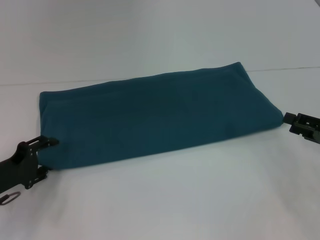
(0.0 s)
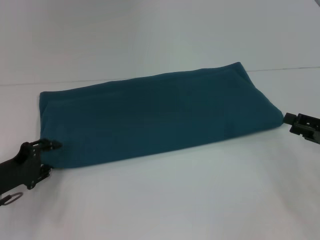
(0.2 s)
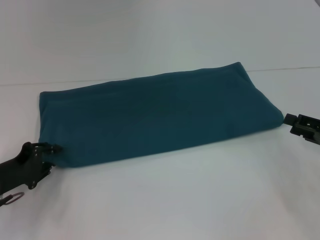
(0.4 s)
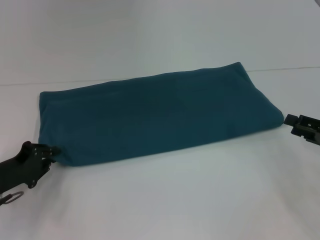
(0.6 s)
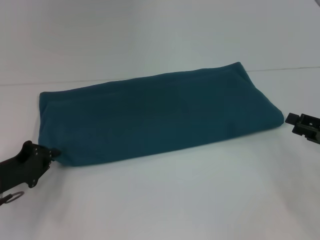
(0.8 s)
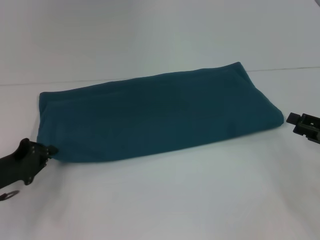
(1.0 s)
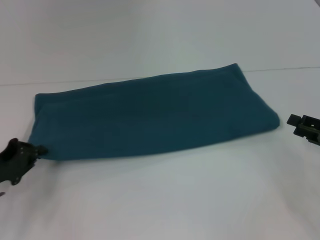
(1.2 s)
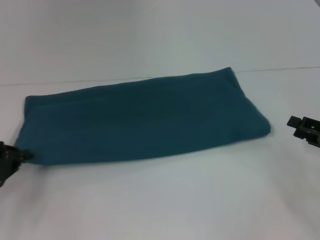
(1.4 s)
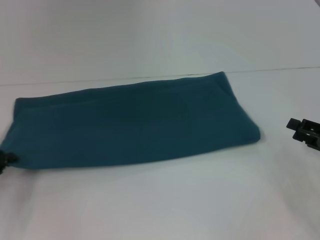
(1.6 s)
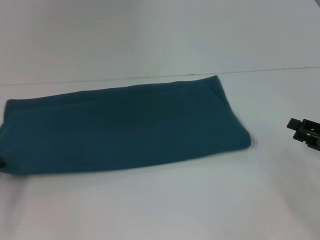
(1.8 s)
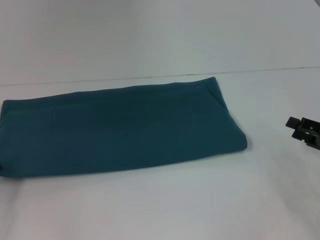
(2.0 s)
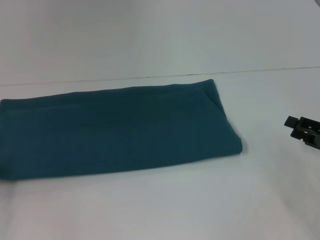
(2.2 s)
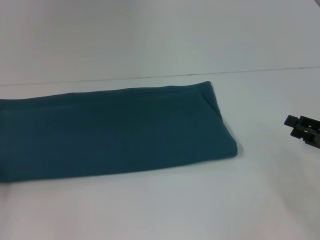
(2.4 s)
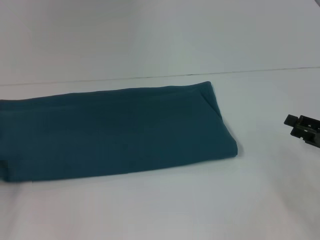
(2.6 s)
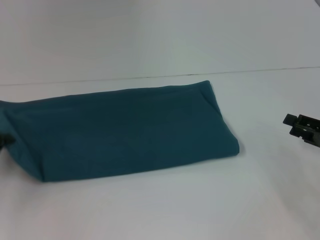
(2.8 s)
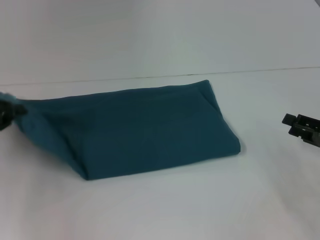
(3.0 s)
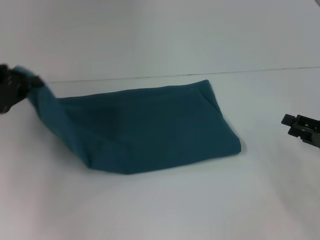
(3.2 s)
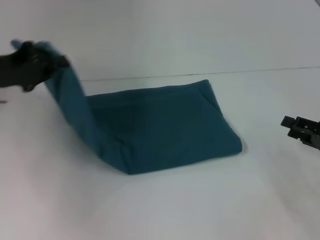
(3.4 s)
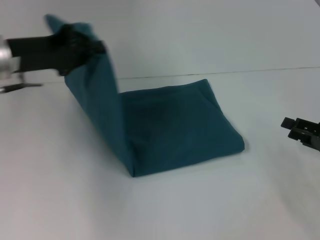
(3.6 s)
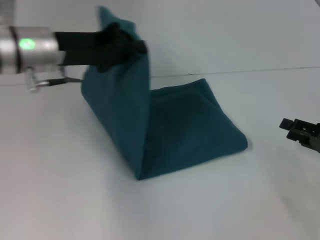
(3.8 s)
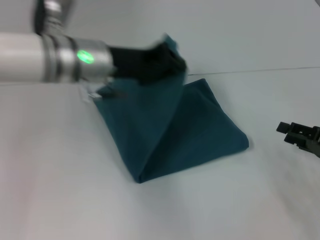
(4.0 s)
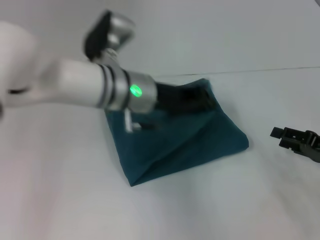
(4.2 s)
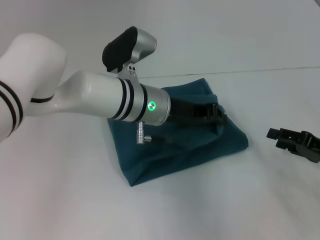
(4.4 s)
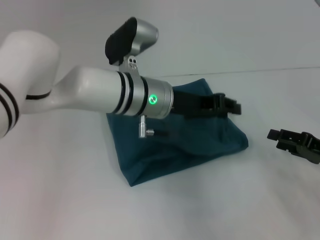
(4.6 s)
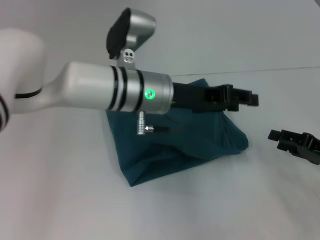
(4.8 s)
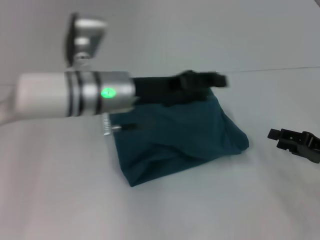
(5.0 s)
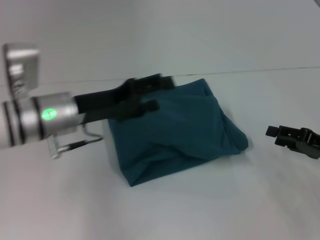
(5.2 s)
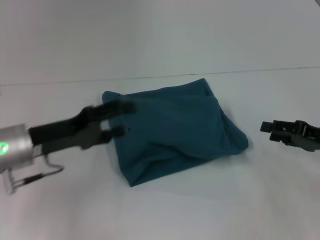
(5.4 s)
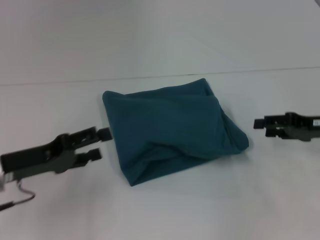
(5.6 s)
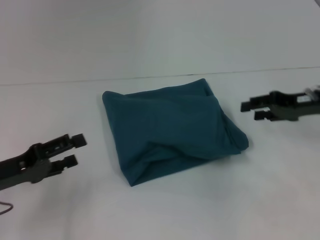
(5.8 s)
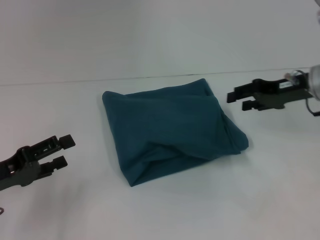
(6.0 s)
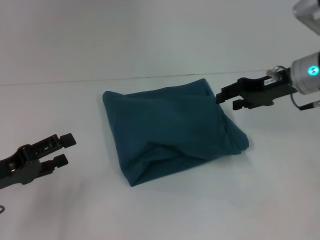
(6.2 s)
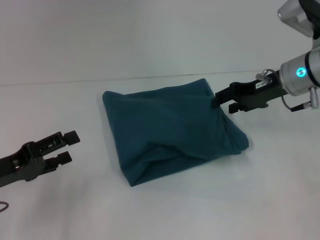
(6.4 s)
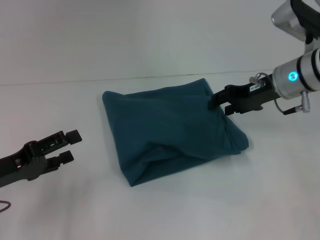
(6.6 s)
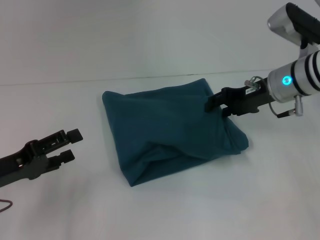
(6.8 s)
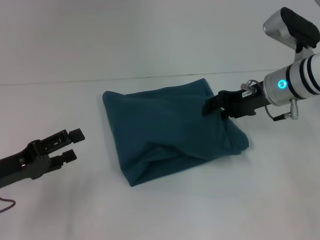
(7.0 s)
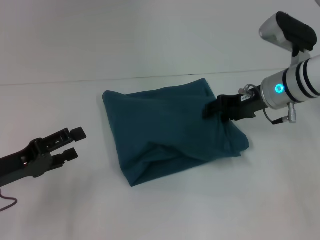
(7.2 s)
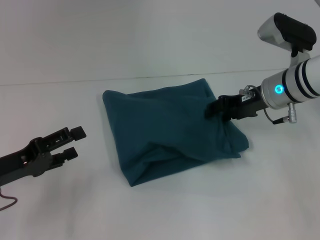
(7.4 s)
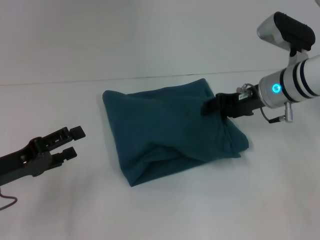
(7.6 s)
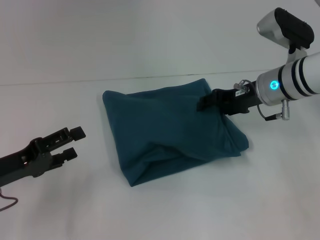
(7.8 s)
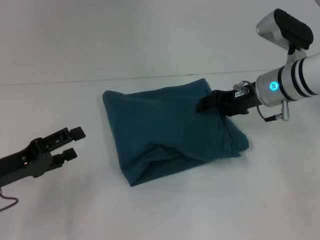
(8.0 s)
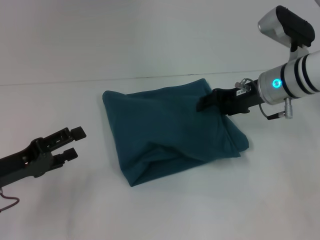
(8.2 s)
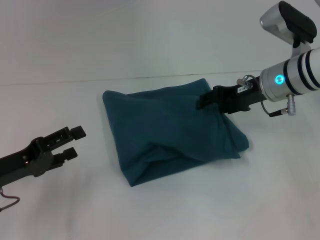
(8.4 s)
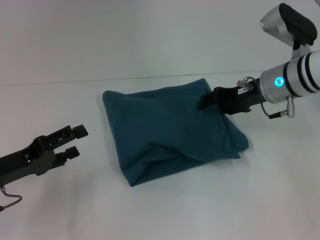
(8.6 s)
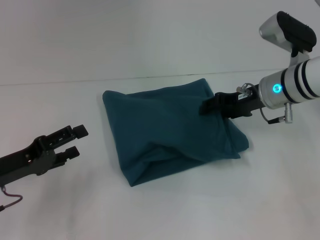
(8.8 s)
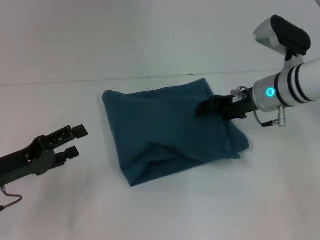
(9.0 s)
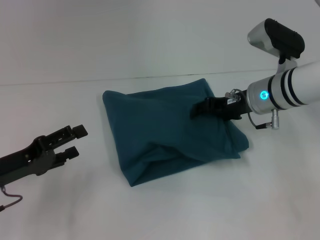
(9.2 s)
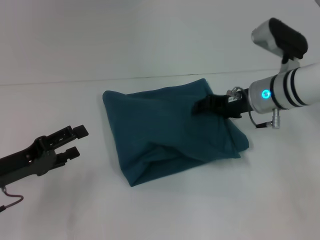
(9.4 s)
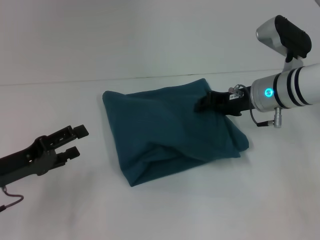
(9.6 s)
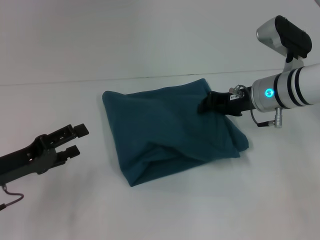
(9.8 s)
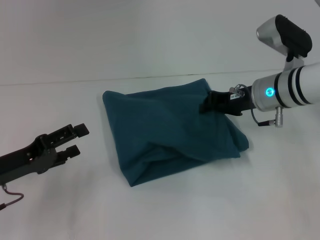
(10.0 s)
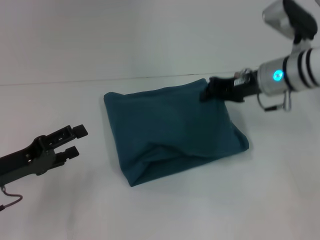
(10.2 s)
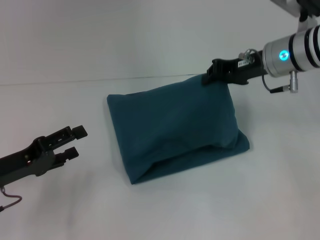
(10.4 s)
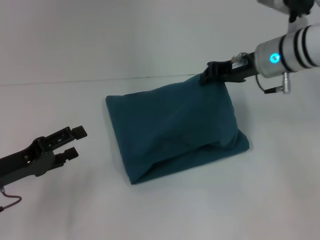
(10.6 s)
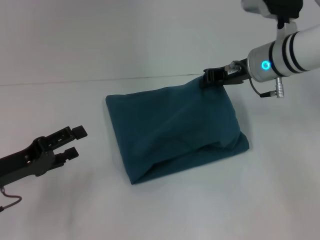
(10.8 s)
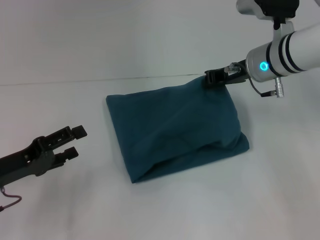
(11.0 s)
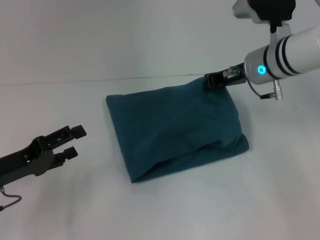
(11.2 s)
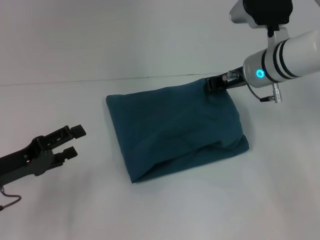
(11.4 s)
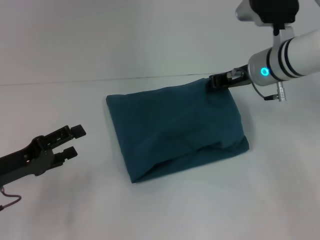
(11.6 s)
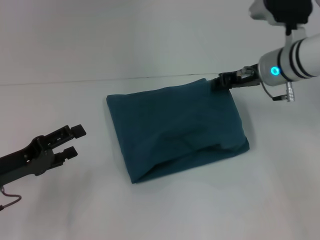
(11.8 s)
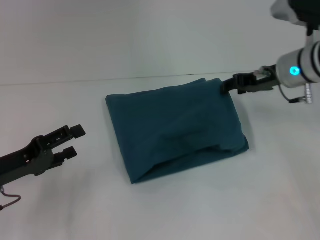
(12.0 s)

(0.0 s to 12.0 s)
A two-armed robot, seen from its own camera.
Step, 0.0 s - 5.0 s: Fold the clothes to the left.
0.0 s - 1.6 s: The left gripper is displaced to the left by roughly 5 cm, and closes its fingers.
1.6 s - 3.0 s: The left gripper is displaced upward by approximately 5 cm.
3.0 s - 4.4 s: The left gripper shifts some 30 cm to the right.
4.4 s - 6.0 s: The right gripper is displaced forward, upward and to the left by approximately 15 cm, while the left gripper travels to the left and backward by roughly 30 cm, and opens up.
6.0 s - 7.6 s: The right gripper is displaced to the left by about 5 cm.
7.6 s - 9.0 s: The grippers stay close to where they were, moving slightly.
9.0 s - 10.4 s: The right gripper travels upward by approximately 5 cm, and closes its fingers.
10.4 s - 12.0 s: The right gripper opens its fingers.

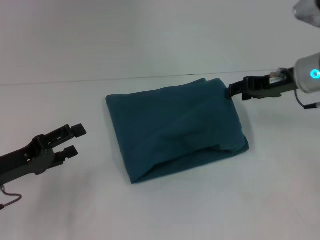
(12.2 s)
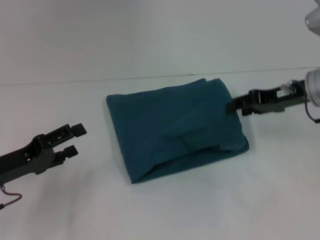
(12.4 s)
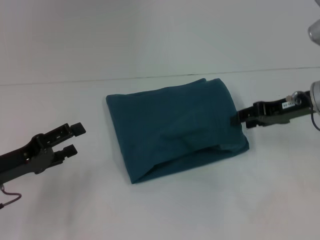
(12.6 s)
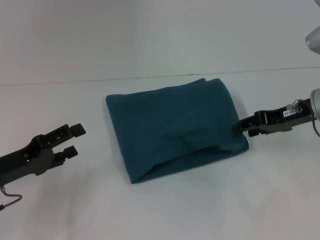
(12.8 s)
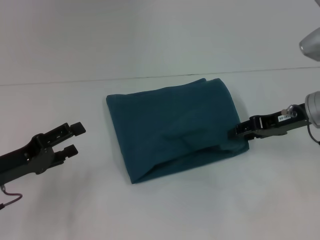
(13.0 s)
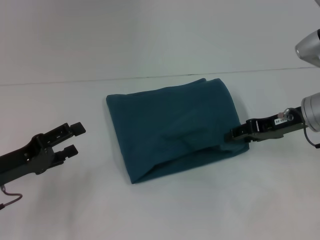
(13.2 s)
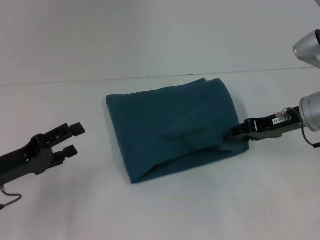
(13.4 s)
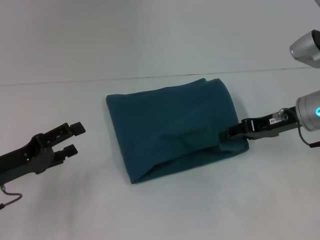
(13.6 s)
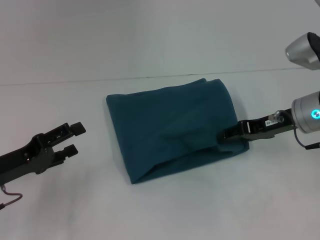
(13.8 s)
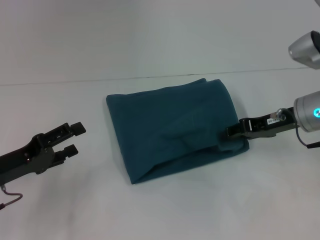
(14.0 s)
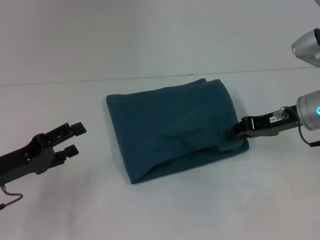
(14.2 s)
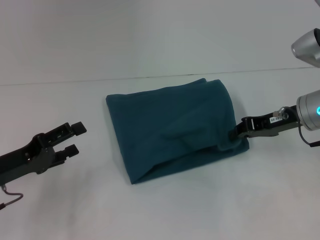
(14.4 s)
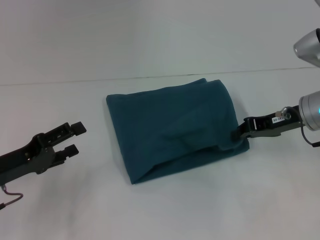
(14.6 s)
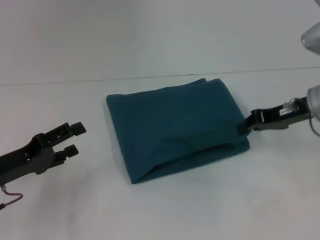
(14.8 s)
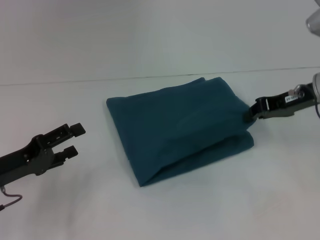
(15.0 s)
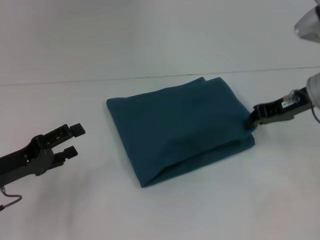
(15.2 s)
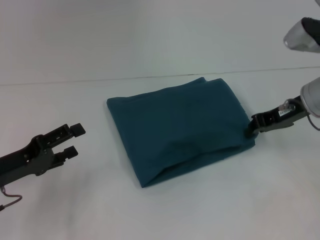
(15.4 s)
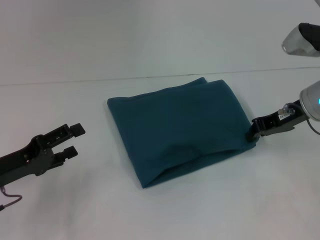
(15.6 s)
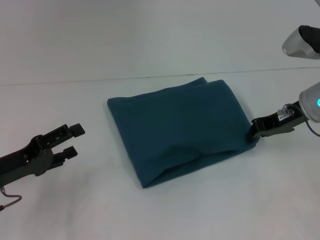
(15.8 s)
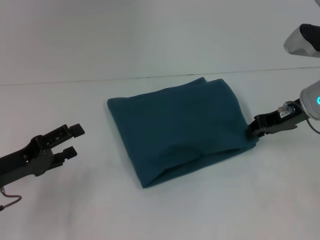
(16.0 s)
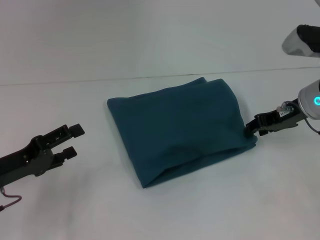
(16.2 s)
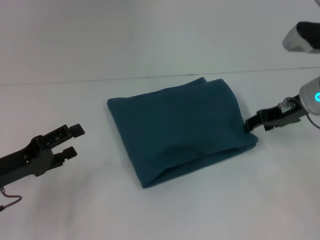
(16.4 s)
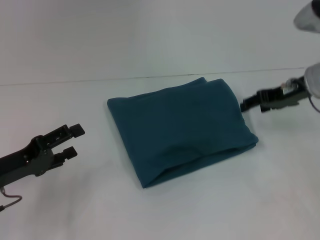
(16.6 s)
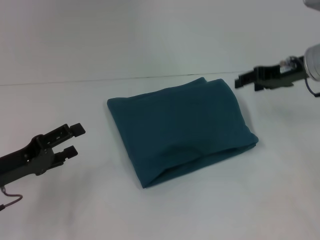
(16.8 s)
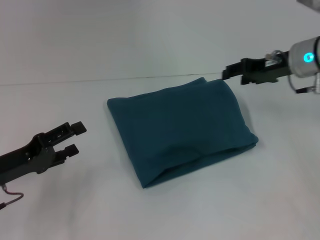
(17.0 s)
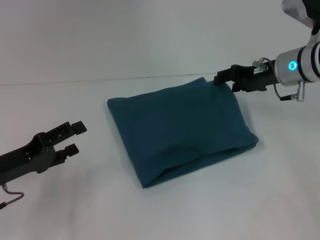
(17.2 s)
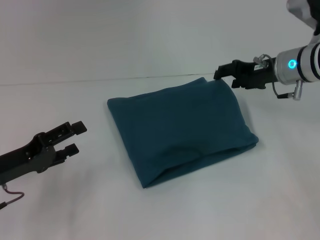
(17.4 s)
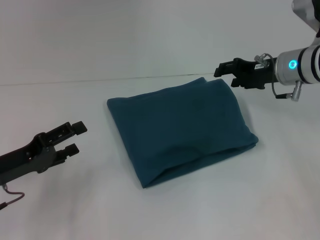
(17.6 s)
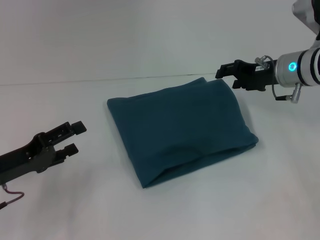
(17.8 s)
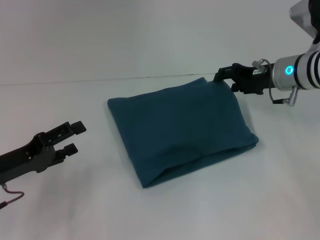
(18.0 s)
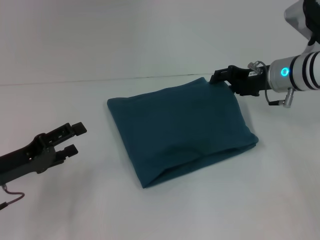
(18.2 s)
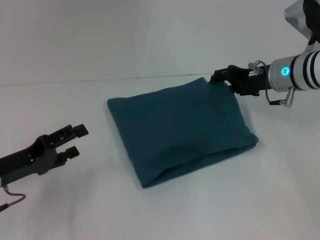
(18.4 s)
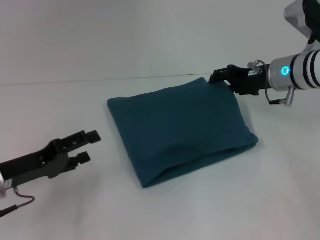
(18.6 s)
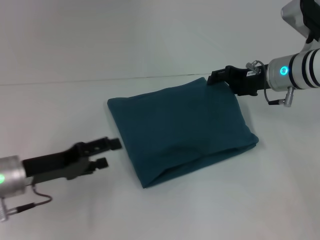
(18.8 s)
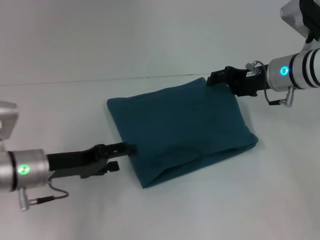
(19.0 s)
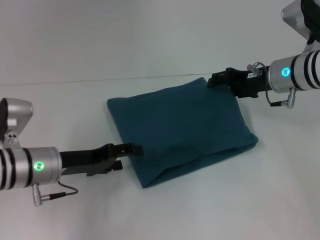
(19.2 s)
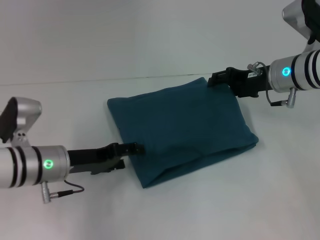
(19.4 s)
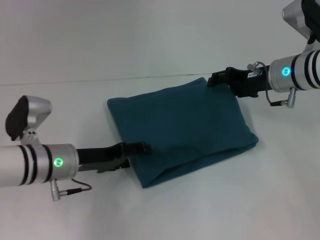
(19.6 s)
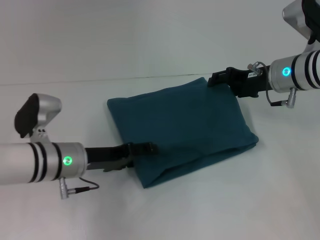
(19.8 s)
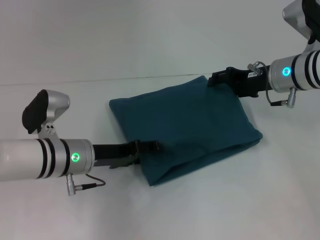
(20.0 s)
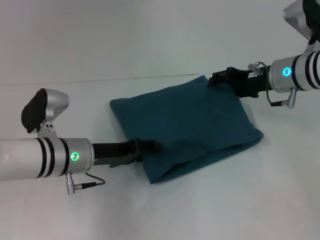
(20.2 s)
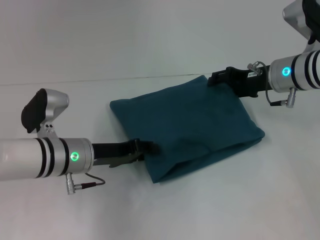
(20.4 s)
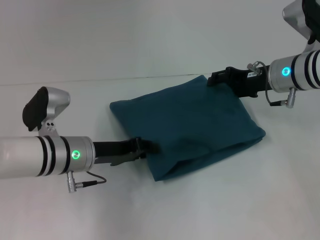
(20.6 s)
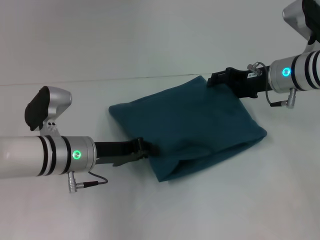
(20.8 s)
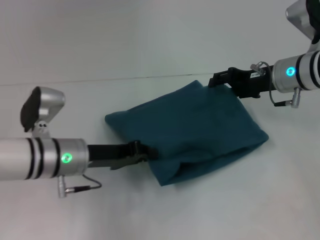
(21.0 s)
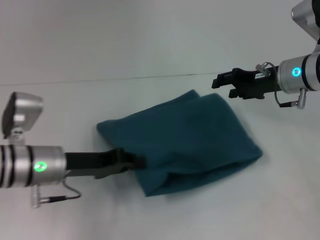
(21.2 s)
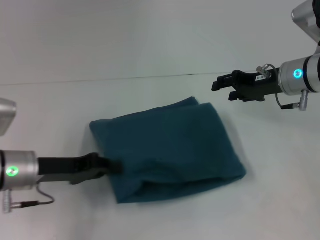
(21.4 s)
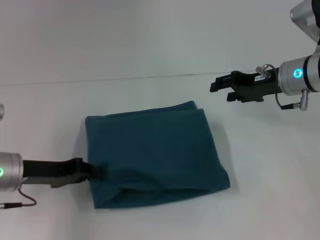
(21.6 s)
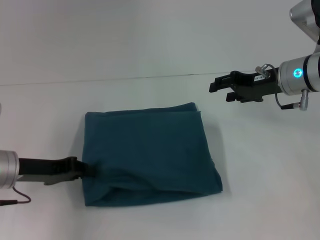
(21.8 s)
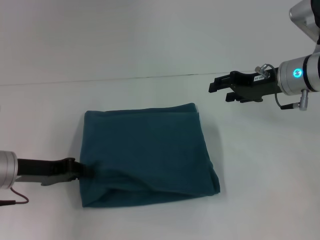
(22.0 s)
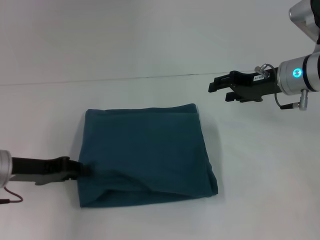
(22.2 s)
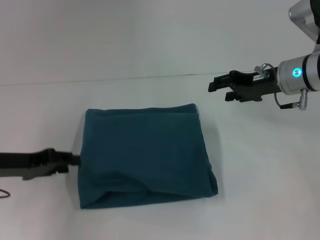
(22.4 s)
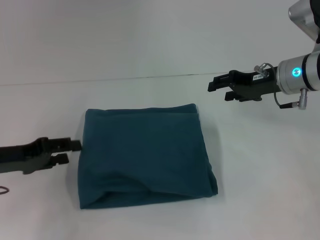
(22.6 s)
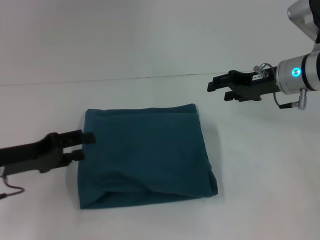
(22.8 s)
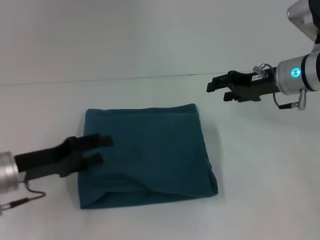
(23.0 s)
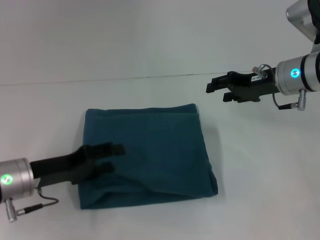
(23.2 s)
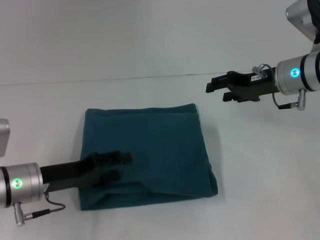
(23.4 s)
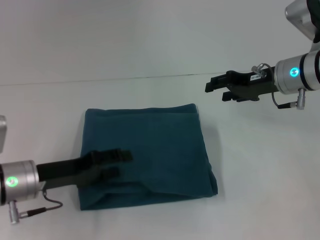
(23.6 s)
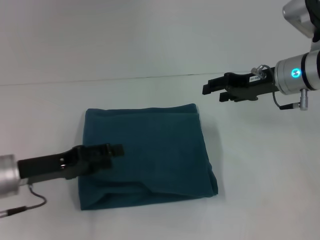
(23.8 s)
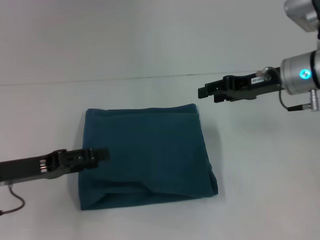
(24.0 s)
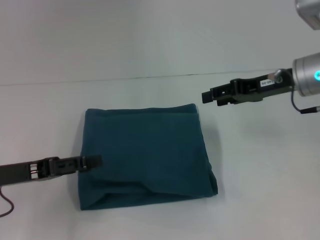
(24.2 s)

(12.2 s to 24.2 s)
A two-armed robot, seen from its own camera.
12.2 s - 13.8 s: The right gripper shifts by some 5 cm.
13.8 s - 15.2 s: The right gripper closes its fingers.
15.2 s - 16.6 s: The right gripper opens its fingers.
16.6 s - 18.2 s: The right gripper shifts by about 5 cm.
18.2 s - 19.8 s: The left gripper goes about 15 cm to the right and forward.
19.8 s - 21.2 s: The left gripper closes.
21.2 s - 22.6 s: The left gripper travels to the left by approximately 10 cm, and opens.
